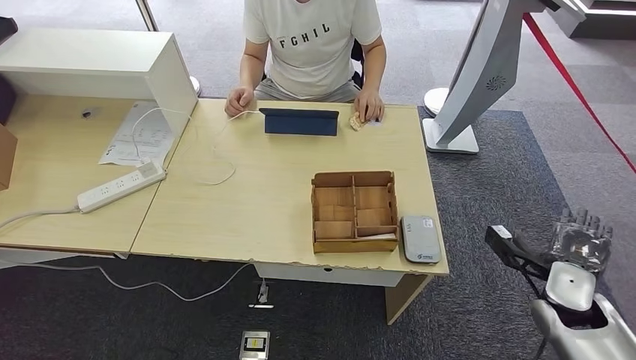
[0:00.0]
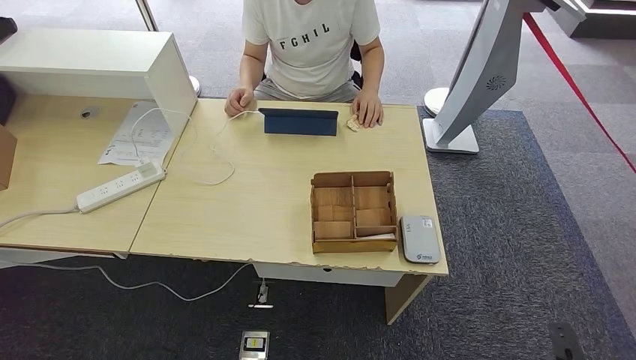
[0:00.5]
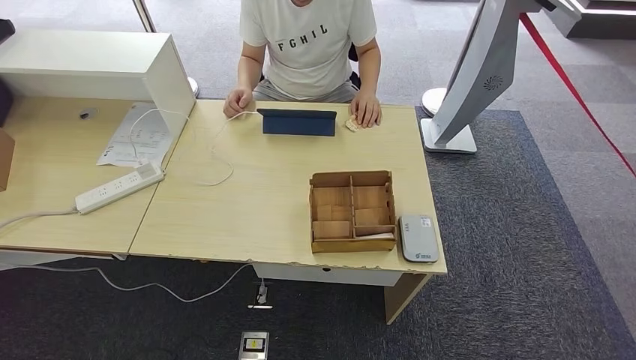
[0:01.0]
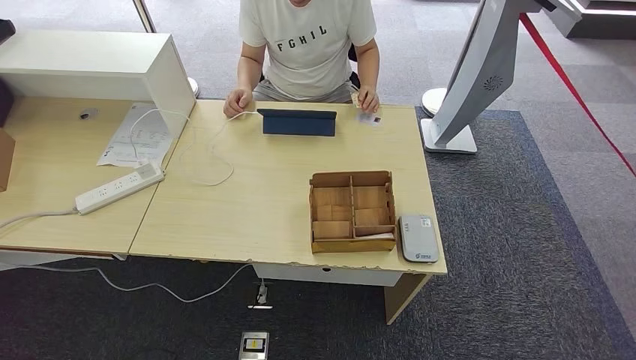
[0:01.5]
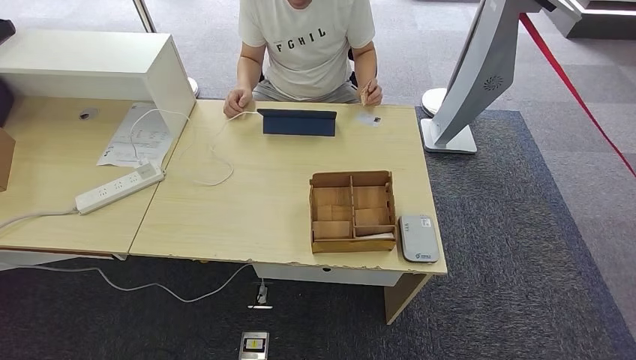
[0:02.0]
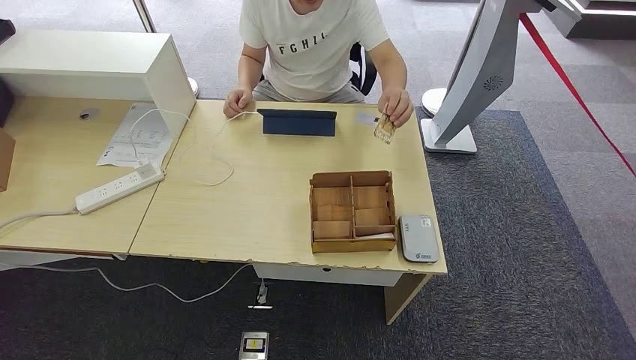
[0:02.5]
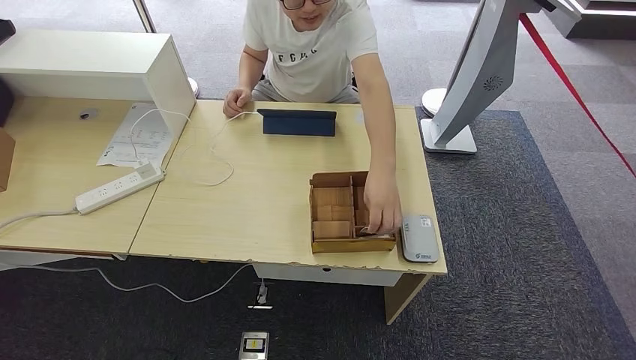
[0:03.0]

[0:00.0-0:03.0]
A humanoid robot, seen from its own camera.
Step, 0:00.0 to 0:03.0: Hand the room key to the person.
0:00.0 to 0:01.5: The right hand goes about 40 cm backward, downward and to the left.
0:01.5 to 0:03.0: The hands move only a little.

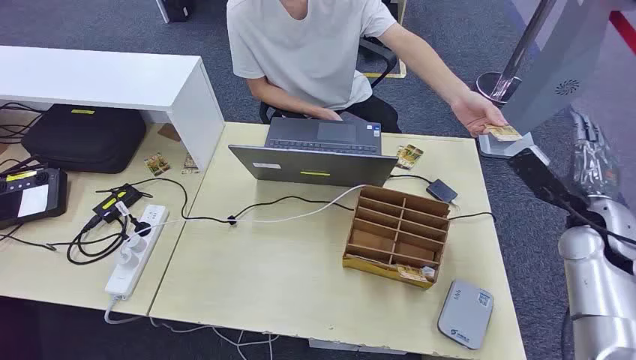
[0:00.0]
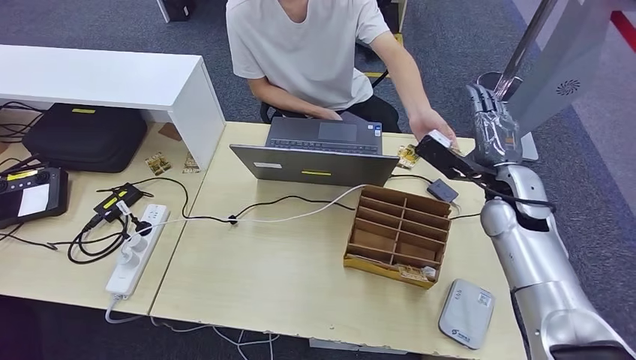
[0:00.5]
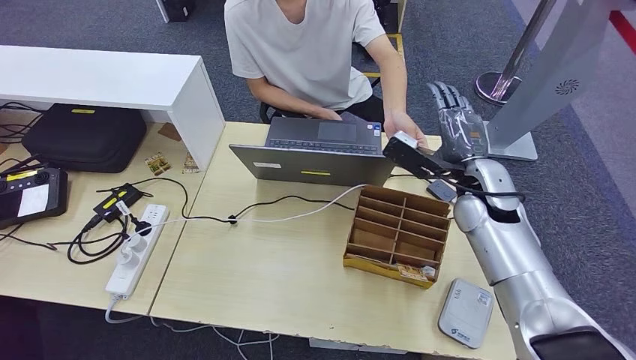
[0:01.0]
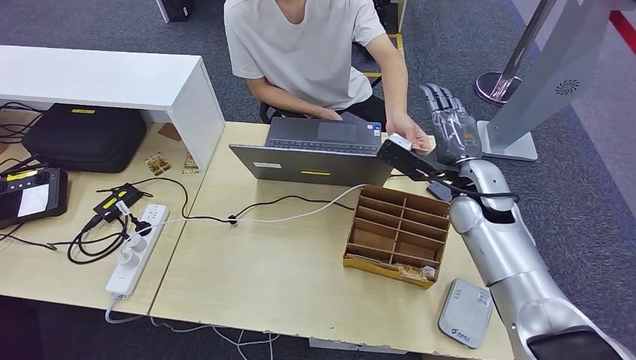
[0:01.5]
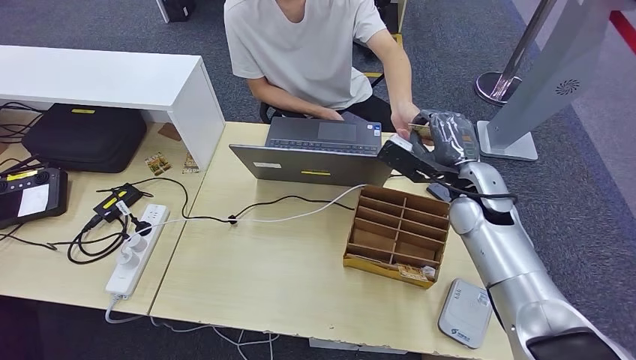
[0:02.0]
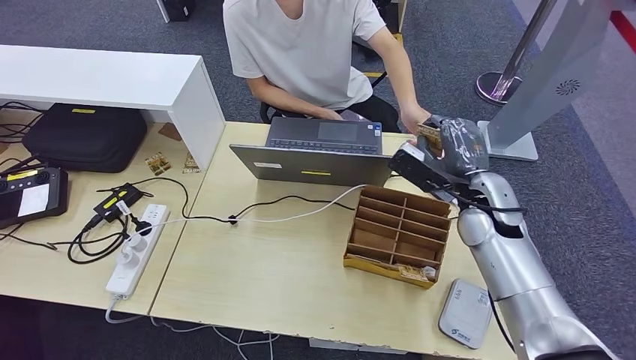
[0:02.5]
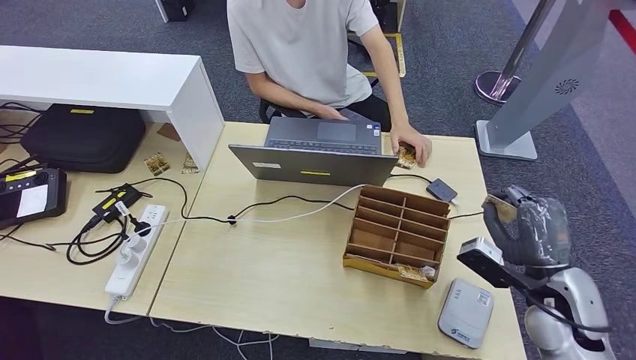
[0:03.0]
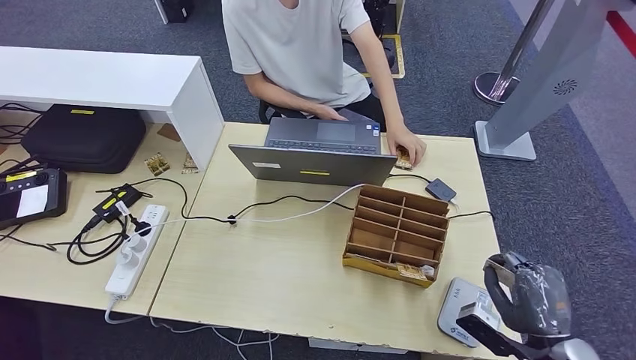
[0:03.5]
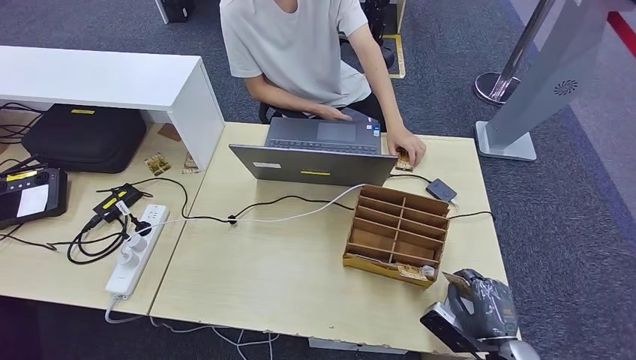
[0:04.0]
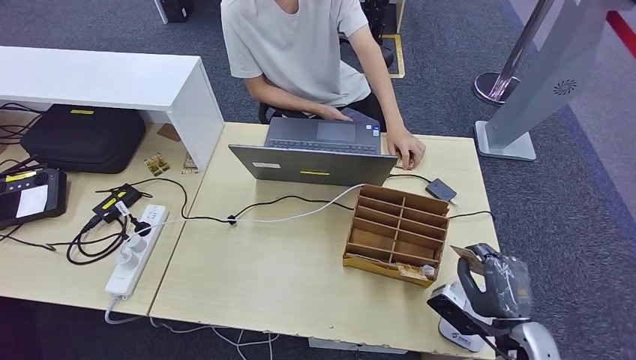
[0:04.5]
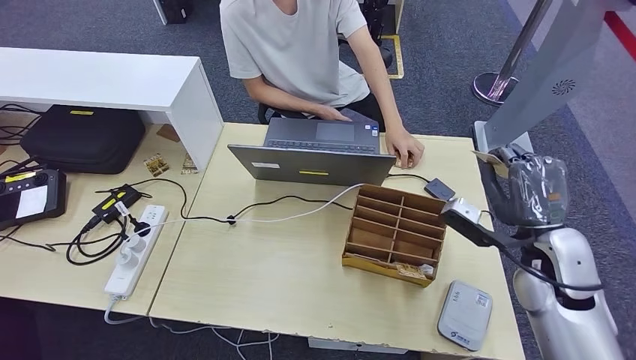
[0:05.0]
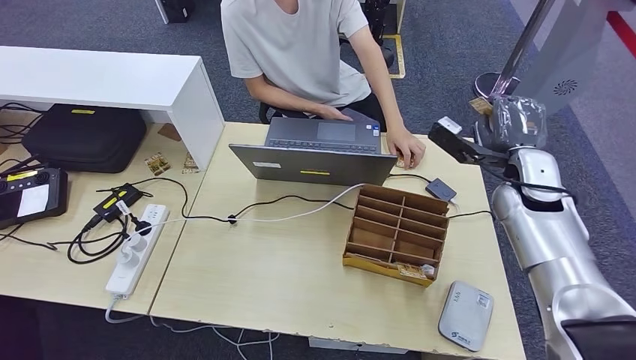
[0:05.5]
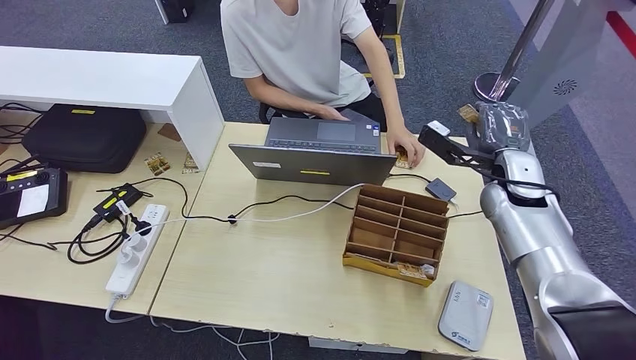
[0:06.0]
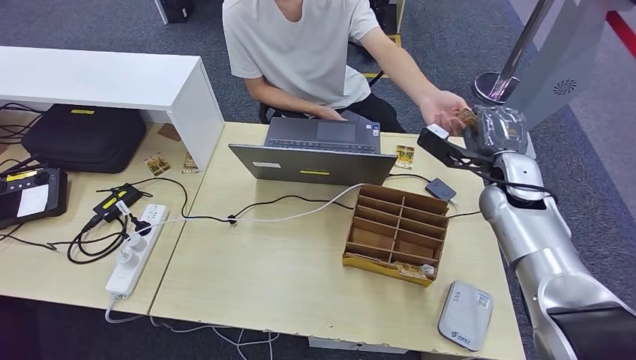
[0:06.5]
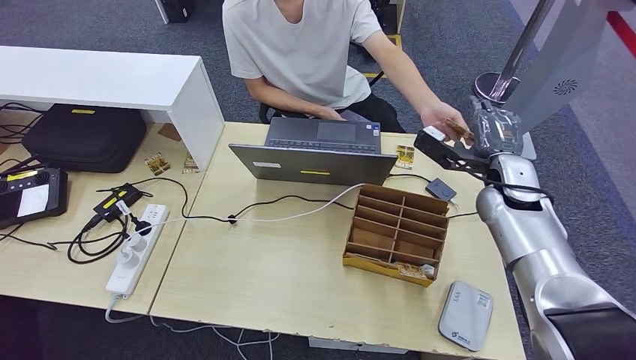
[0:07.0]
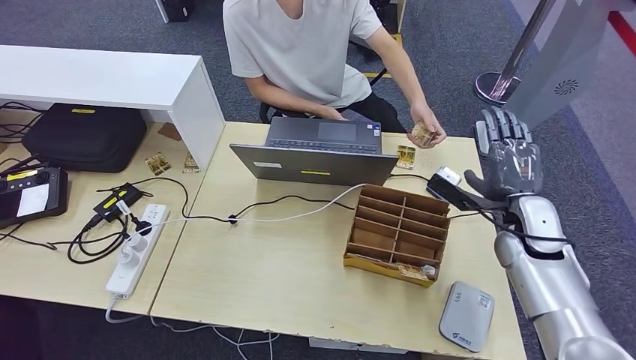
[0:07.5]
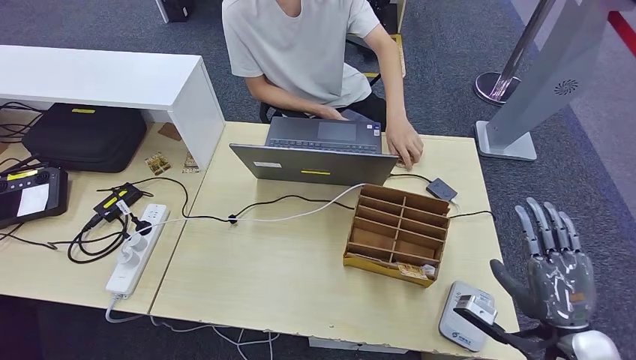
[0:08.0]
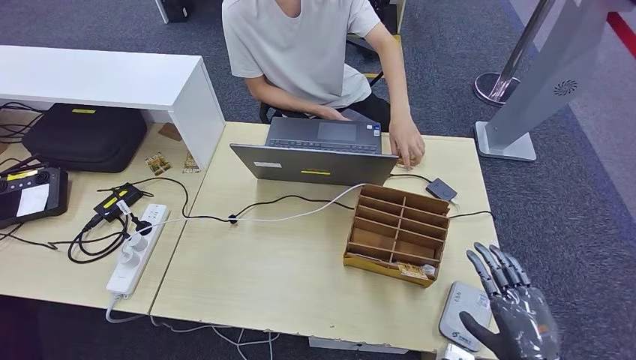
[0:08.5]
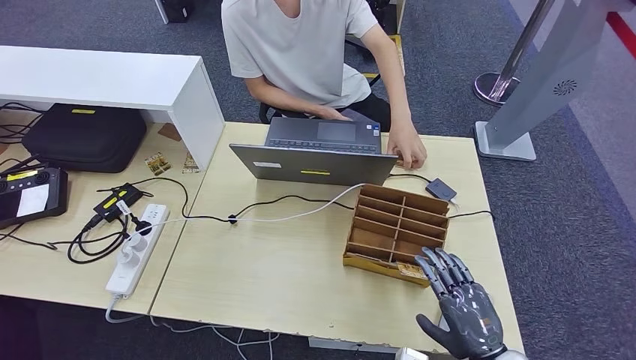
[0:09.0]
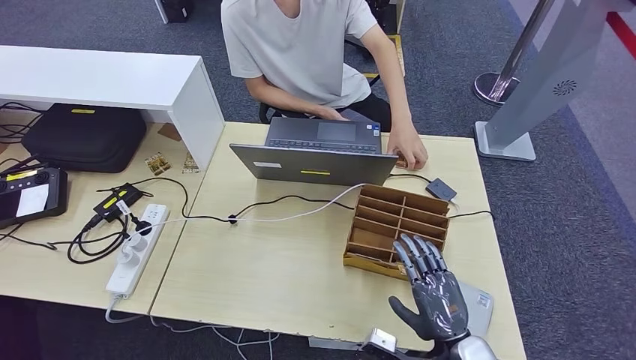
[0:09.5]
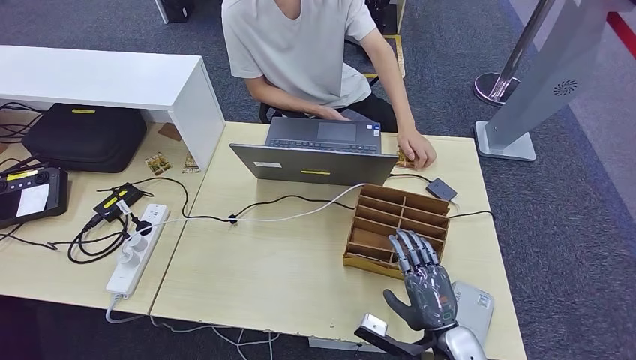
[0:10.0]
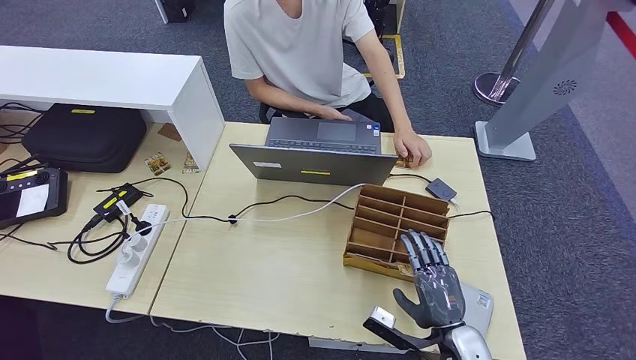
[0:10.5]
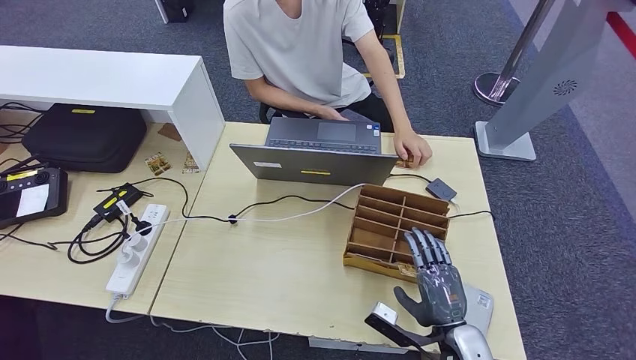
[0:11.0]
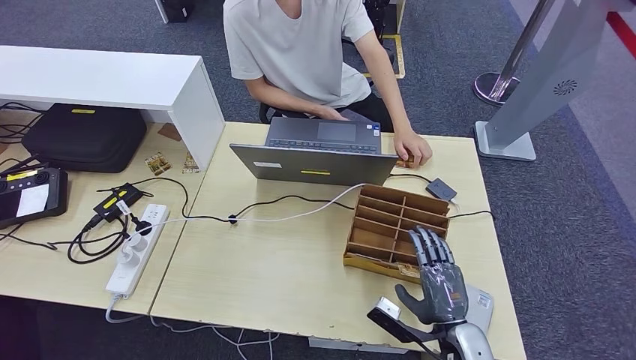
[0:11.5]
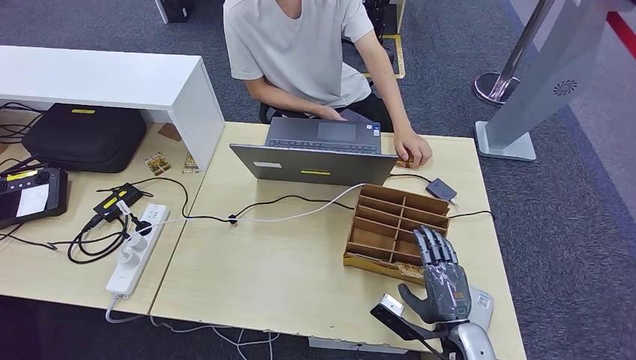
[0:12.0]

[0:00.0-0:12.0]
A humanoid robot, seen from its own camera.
Step, 0:00.0 to 0:03.0: Take the ID card from the person's hand.
Step, 0:03.5 to 0:06.5: Place the ID card on the card reader.
Step, 0:07.0 to 0:08.5: Hand the ID card to the person.
0:02.0 to 0:04.0: The right hand travels backward and downward by approximately 30 cm.
0:04.0 to 0:06.0: The right hand is displaced forward and upward by roughly 35 cm.
0:06.0 to 0:08.0: The right hand moves backward, about 25 cm.
0:08.0 to 0:10.0: The right hand moves to the left and downward, about 15 cm.
0:10.0 to 0:12.0: The hands stay close to where they were, moving slightly.

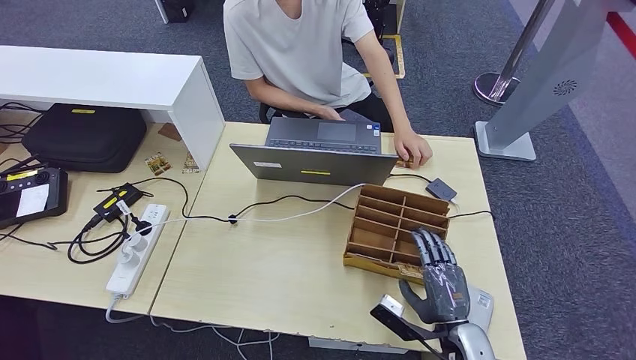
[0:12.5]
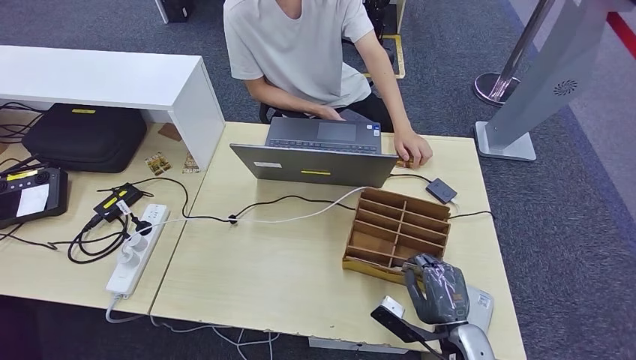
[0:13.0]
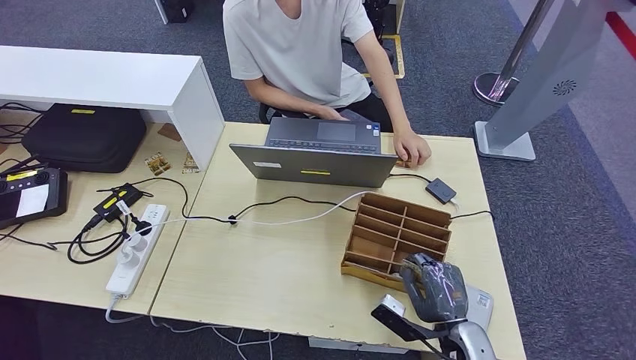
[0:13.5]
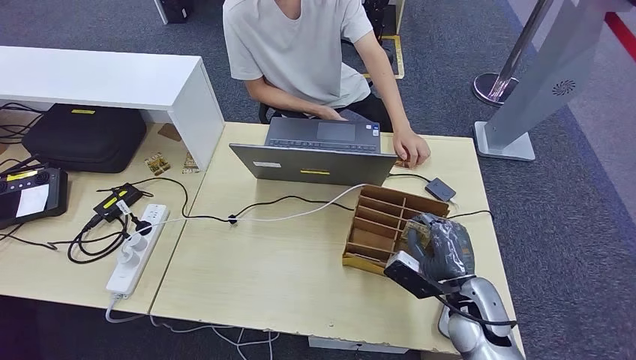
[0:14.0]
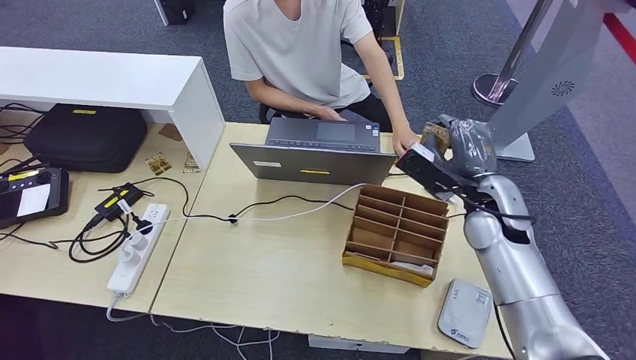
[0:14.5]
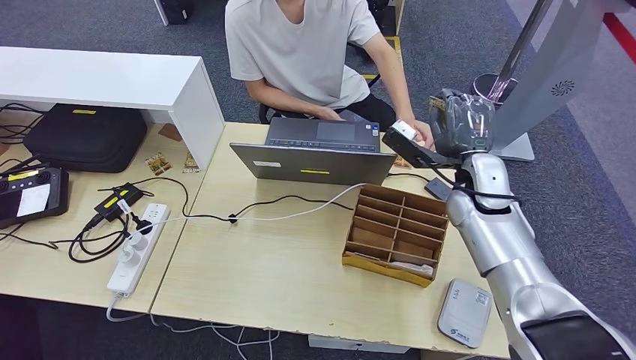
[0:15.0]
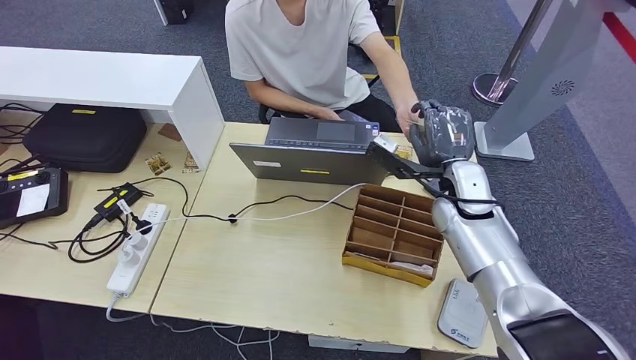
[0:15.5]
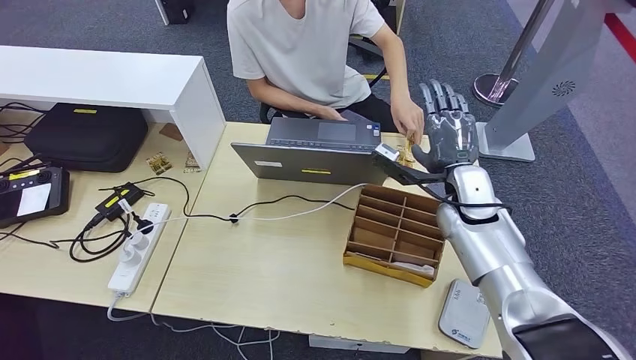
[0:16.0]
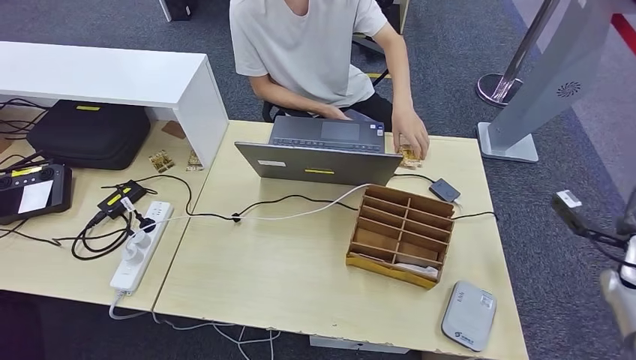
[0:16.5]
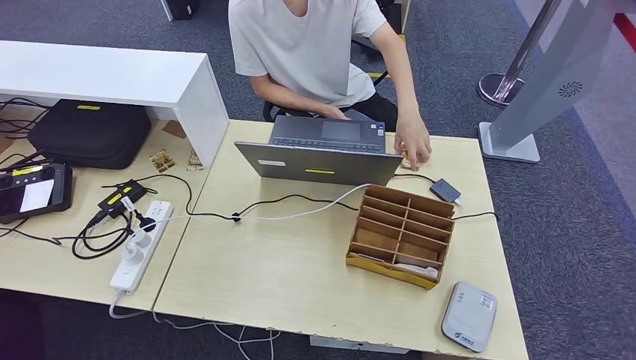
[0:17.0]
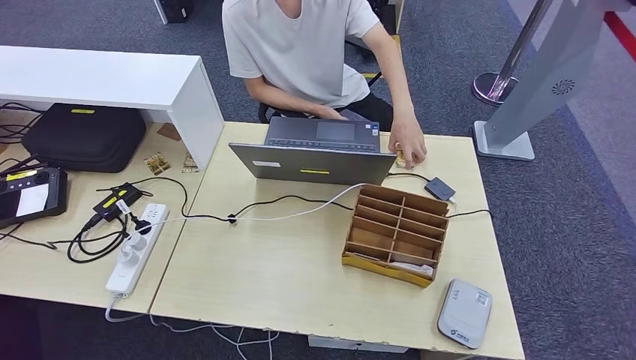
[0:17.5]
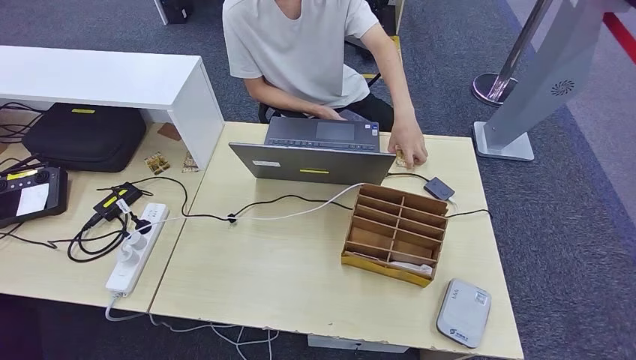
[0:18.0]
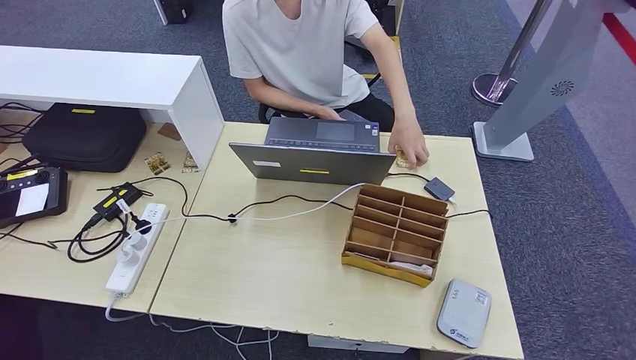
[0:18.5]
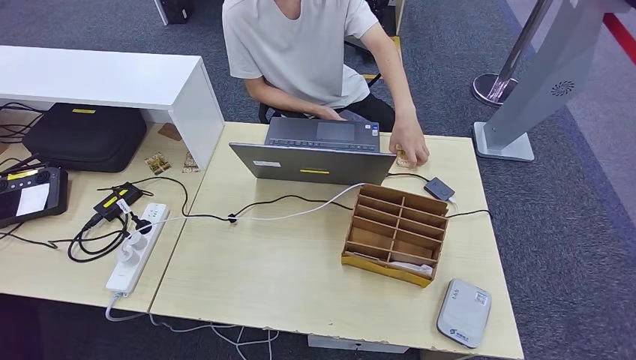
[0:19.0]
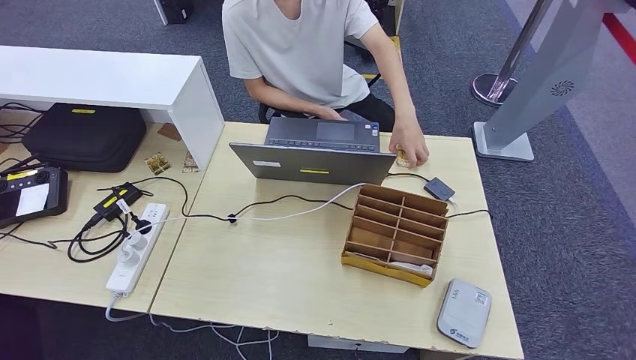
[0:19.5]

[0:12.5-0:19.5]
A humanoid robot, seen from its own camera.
0:12.5 to 0:14.5: The right hand is displaced forward and upward by roughly 25 cm.
0:16.0 to 0:17.5: The right hand goes roughly 60 cm backward, to the right and downward.
0:17.5 to 0:19.5: The right hand is displaced to the left by about 30 cm.
